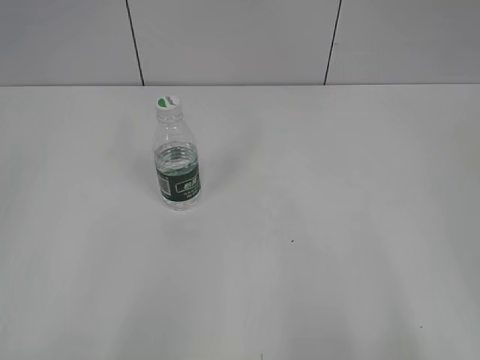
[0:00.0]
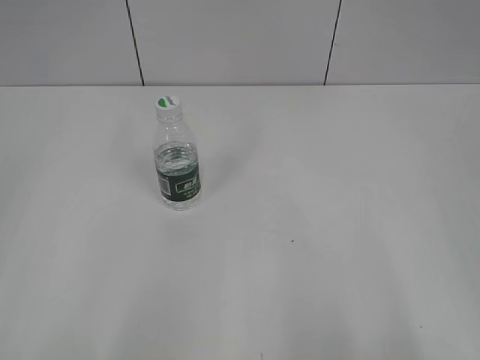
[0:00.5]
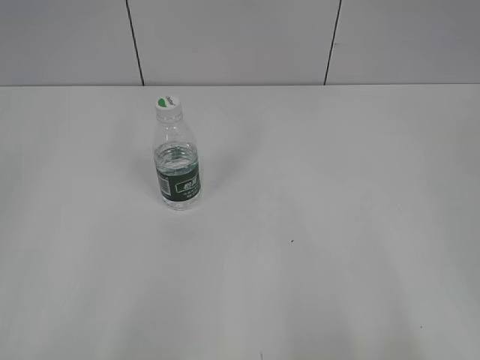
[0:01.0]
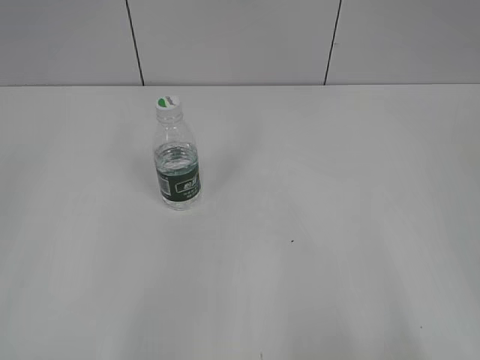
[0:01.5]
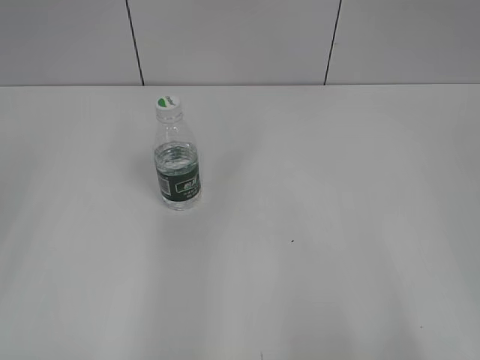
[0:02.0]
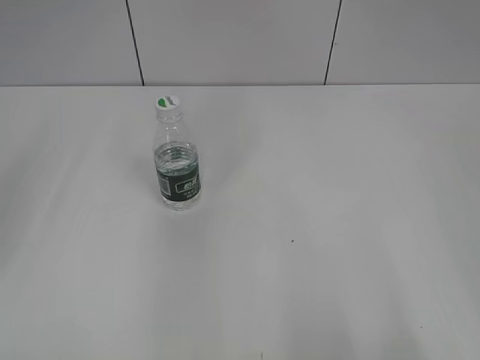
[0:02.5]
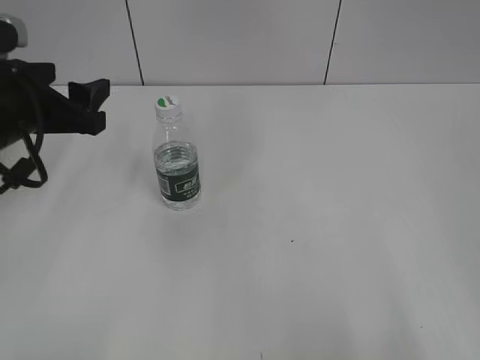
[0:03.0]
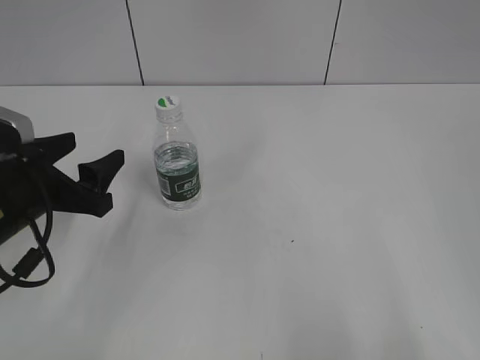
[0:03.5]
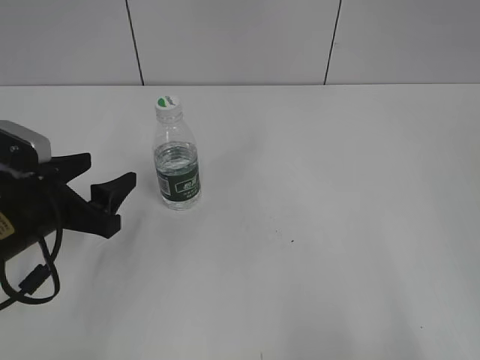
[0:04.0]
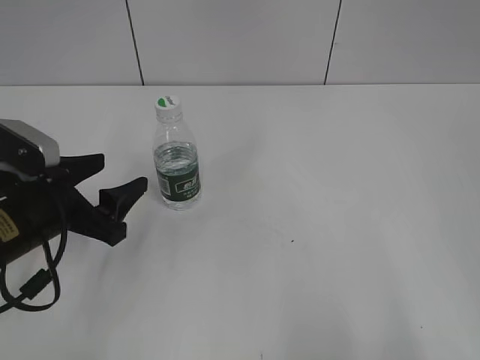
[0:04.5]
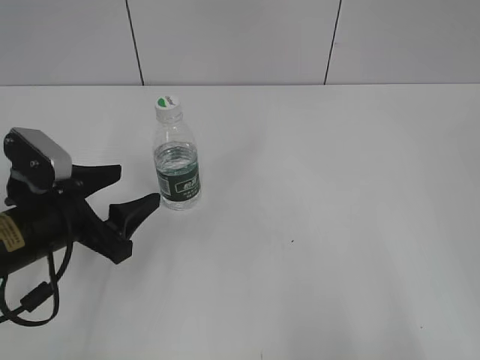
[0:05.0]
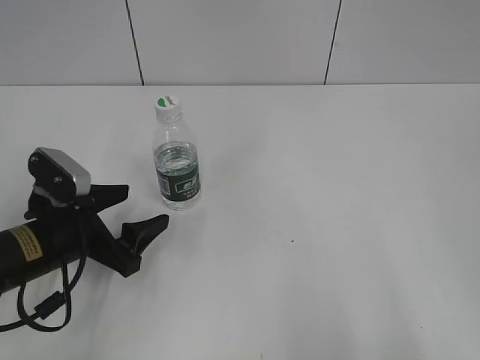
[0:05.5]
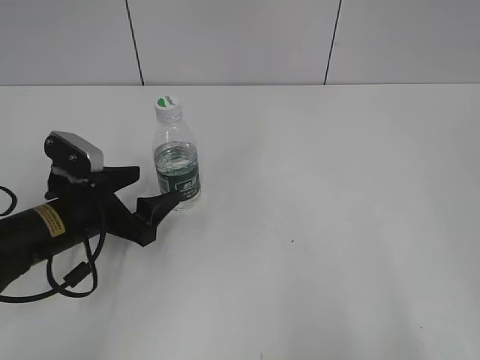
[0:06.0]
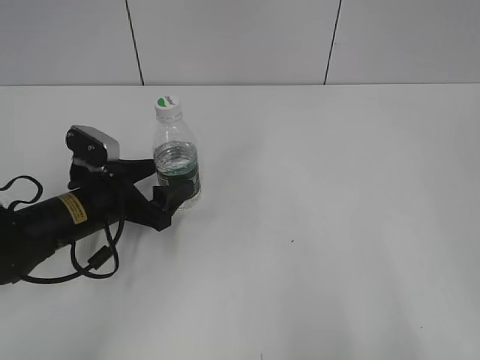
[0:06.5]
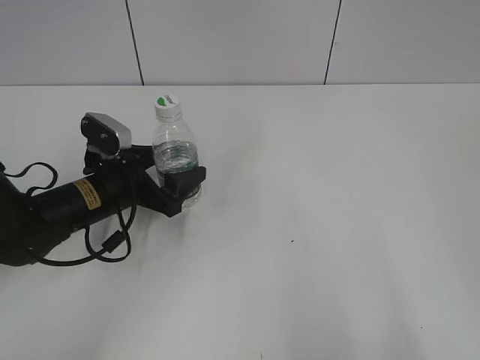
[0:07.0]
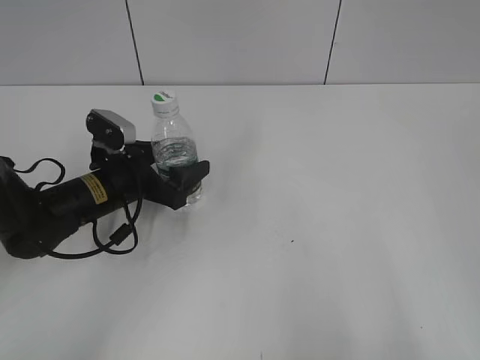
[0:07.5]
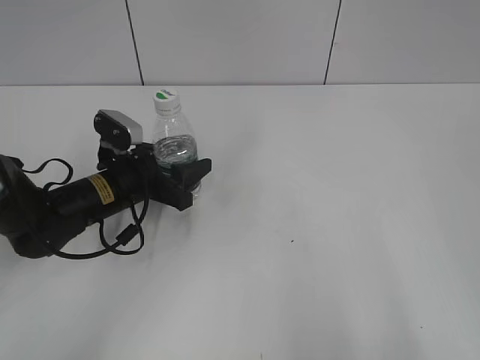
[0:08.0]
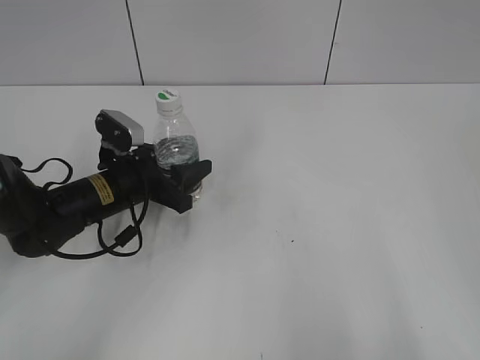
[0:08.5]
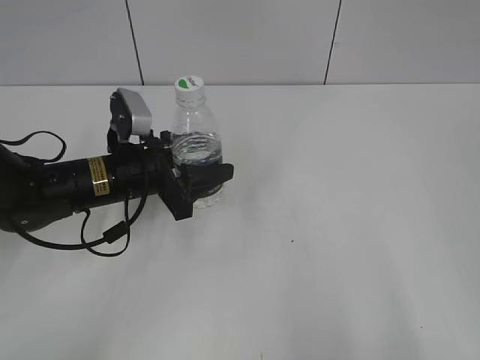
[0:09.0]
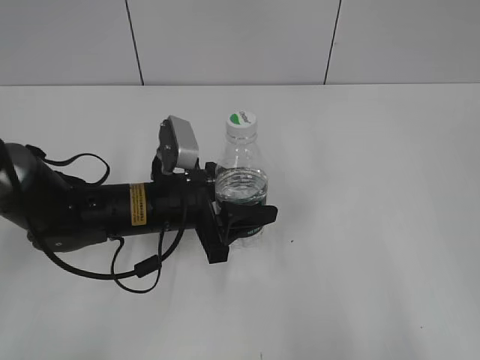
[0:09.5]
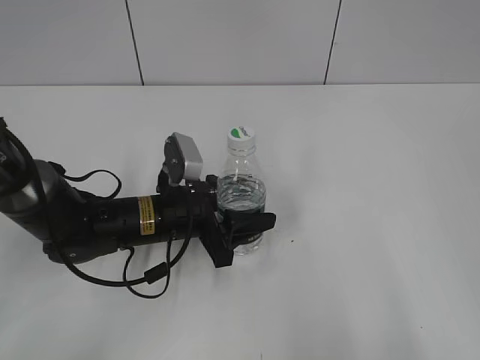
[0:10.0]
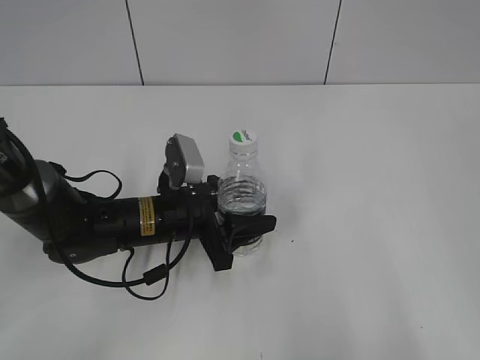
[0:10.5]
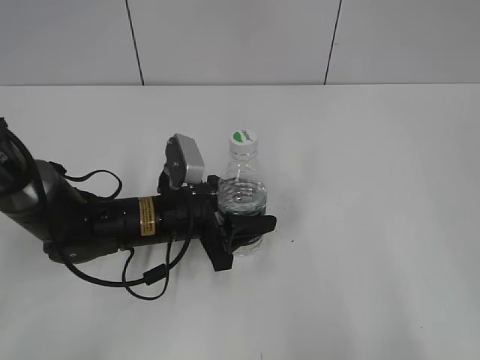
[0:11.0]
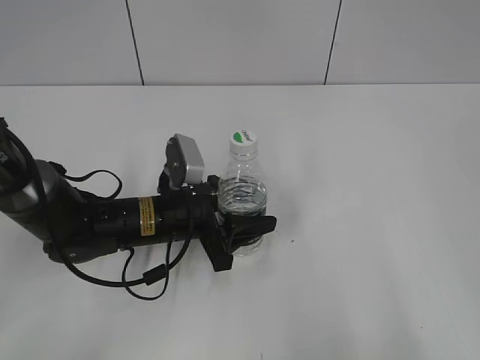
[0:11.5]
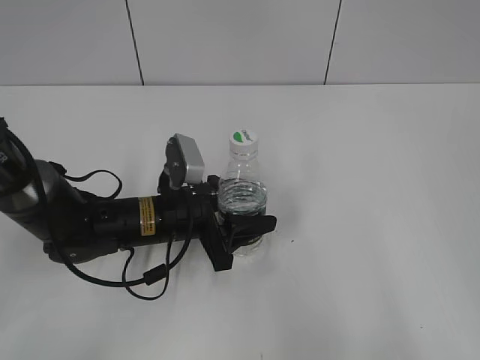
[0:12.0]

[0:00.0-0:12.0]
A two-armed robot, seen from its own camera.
Step, 0:00.0 to 0:08.5: Grasp the bottle and move it to the center of the table with the left gripper.
Step, 0:09.0 to 0:10.0: Lift the bottle and move it to the center of the table with the left gripper.
0:02.0 to 0:04.0: The left gripper goes about 25 cm downward, forward and to the right.
0:04.0 to 0:06.0: The left gripper shifts by approximately 5 cm.
0:06.0 to 0:08.0: The left gripper shifts roughly 5 cm forward, and closes.
0:08.0 to 0:10.0: The left gripper shifts roughly 5 cm to the right, and closes.
0:10.0 to 0:12.0: Both grippers stay put.

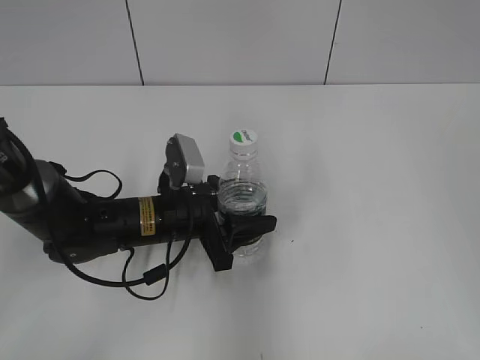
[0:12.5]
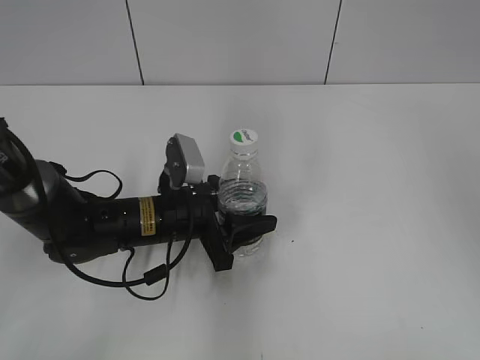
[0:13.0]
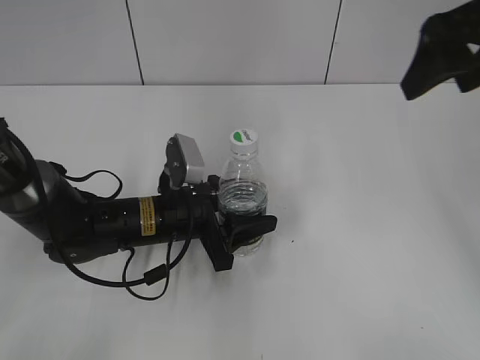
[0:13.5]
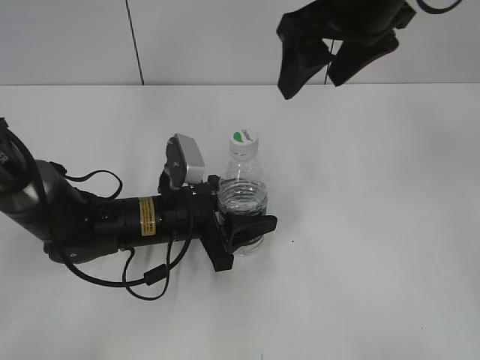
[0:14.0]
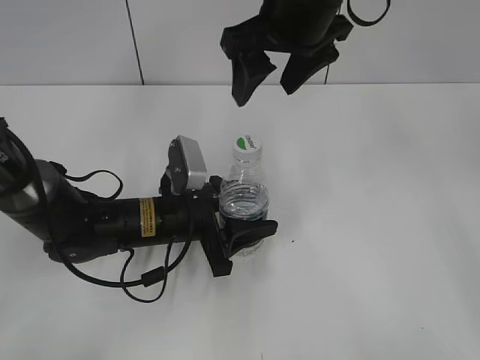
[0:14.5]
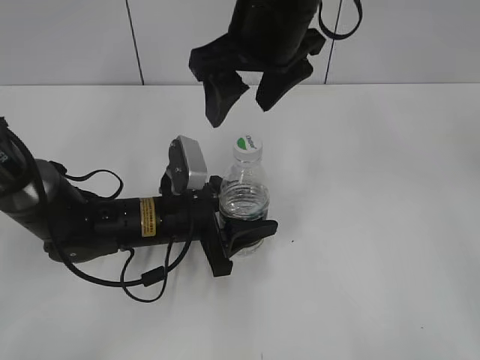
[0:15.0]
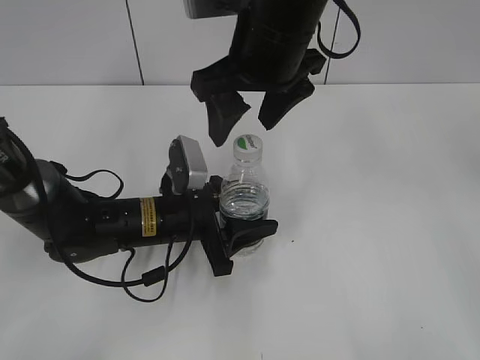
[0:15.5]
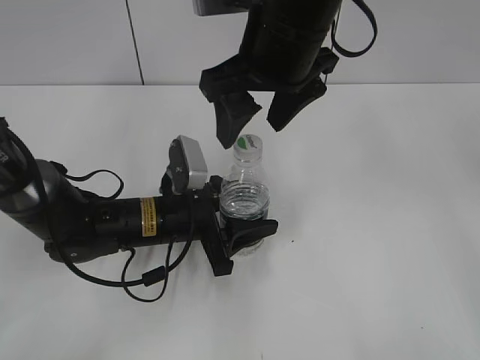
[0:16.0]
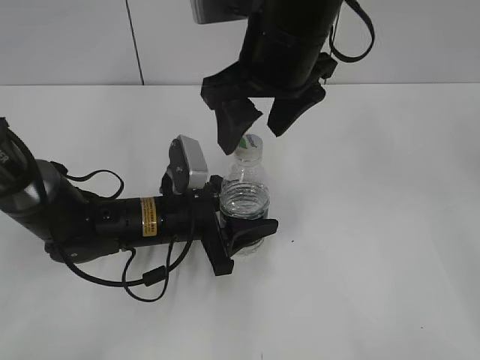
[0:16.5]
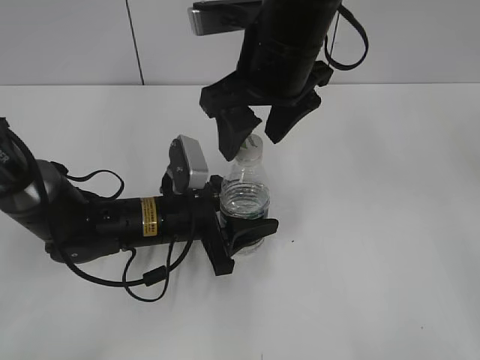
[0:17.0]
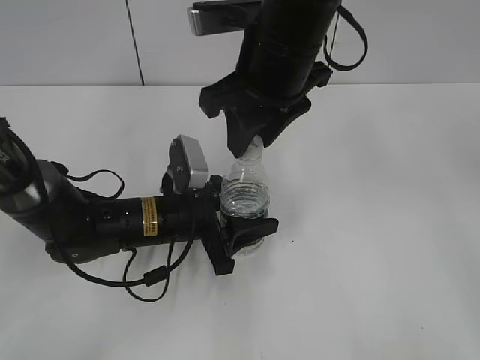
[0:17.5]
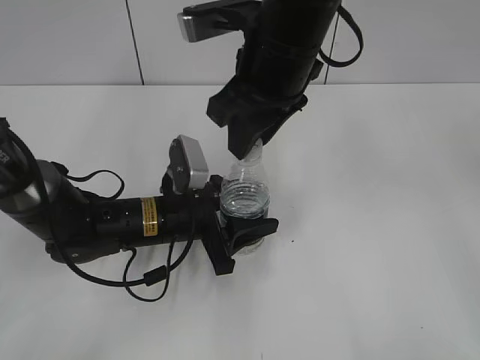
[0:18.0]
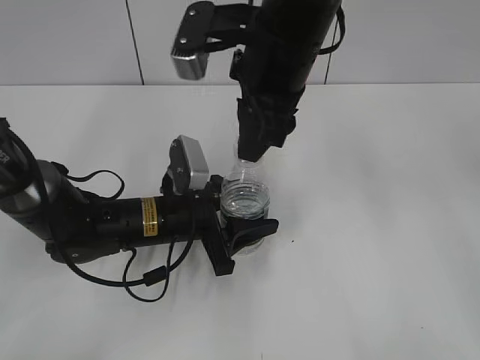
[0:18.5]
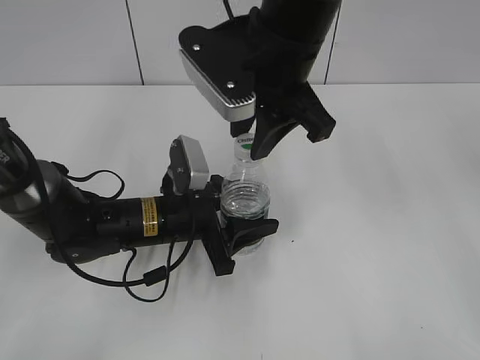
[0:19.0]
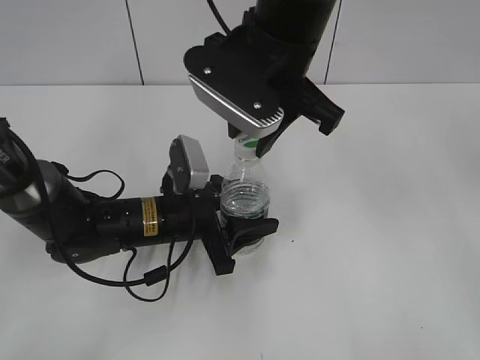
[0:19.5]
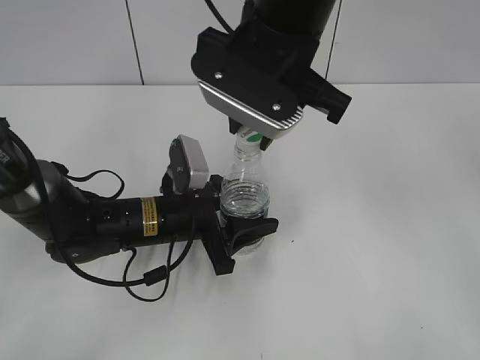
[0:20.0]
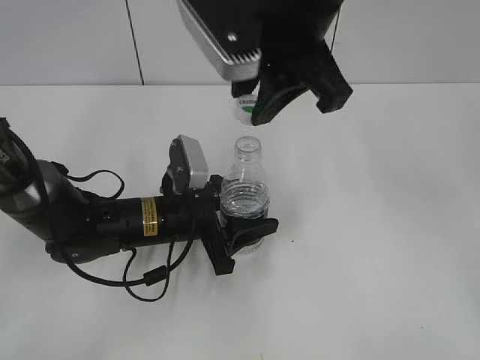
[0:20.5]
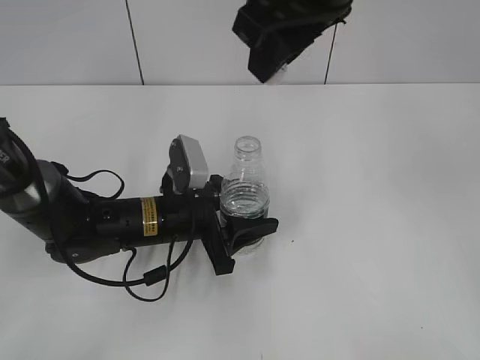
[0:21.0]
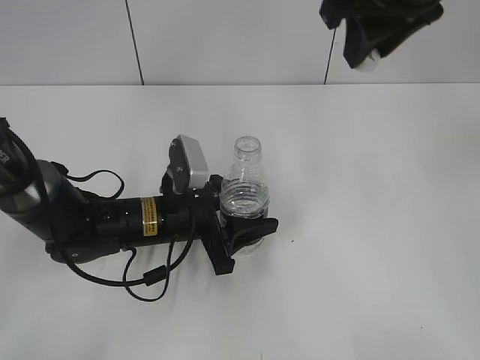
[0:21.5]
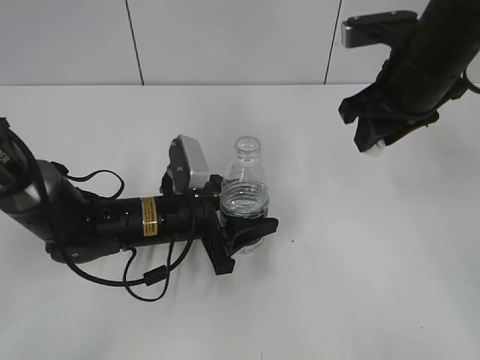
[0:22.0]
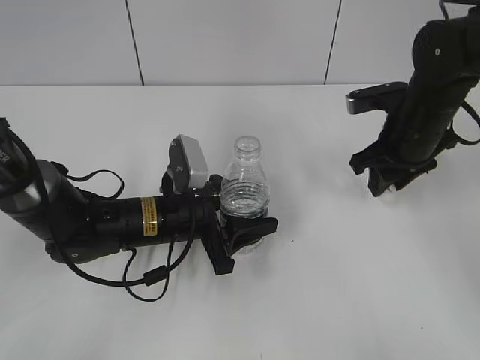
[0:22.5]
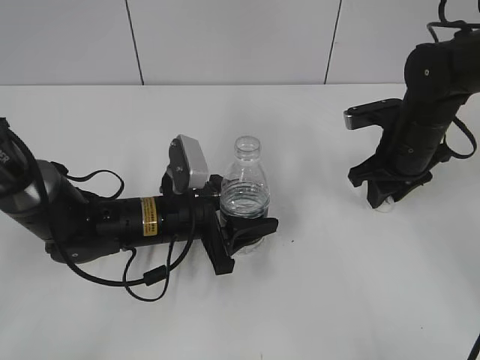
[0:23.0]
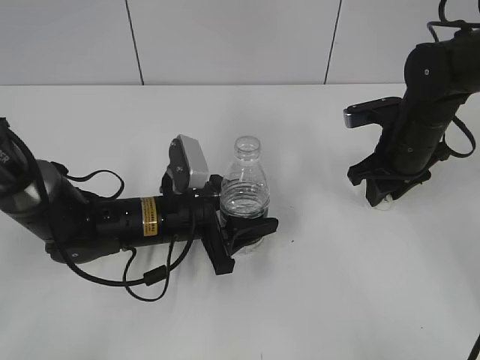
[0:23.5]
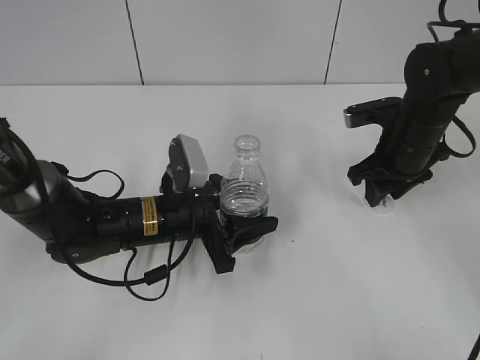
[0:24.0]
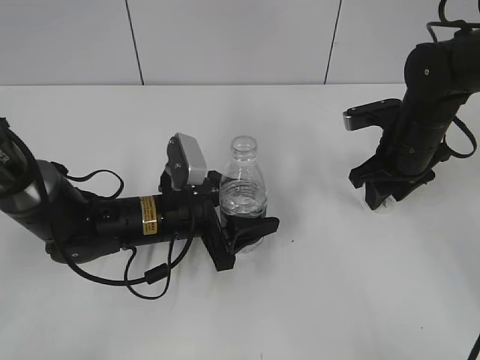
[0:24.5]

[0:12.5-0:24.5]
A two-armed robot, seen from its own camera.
Step, 0:12.5 to 0:20.5: Unscrew the bottle cap with the right gripper while holding the bottle with the left gripper.
0:12.5 to 0:14.5: The right gripper moves forward and to the left, roughly 35 cm.
0:14.5 to 0:16.5: The right gripper shifts by some 5 cm.
0:16.5 to 0:18.5: The right gripper closes up.
0:18.5 to 0:20.5: The right gripper ends up some 5 cm from where it was.
0:20.5 to 0:22.5: The right gripper goes approximately 25 cm to the right, downward and forward.
0:22.5 to 0:24.5: The grippers make only small movements.

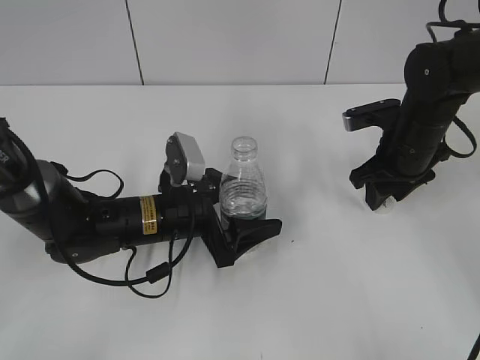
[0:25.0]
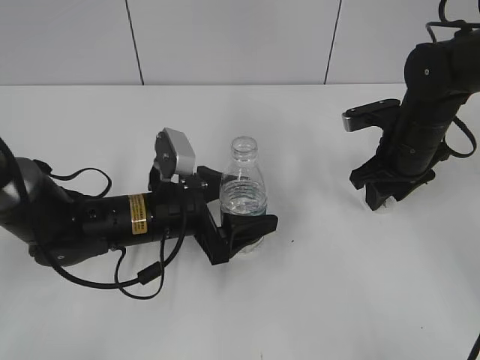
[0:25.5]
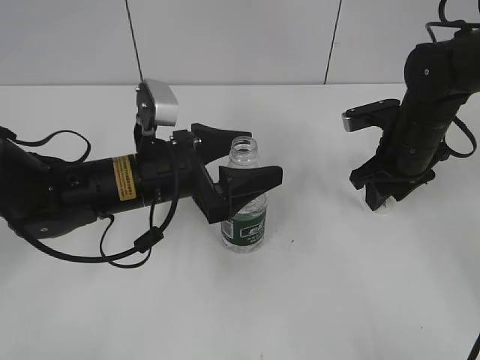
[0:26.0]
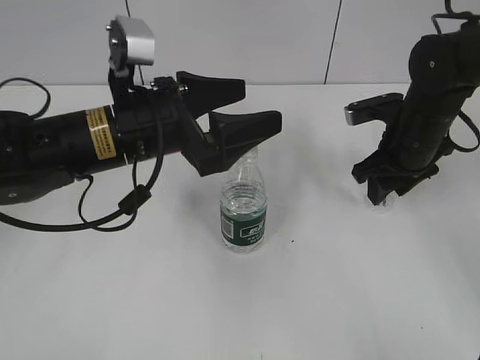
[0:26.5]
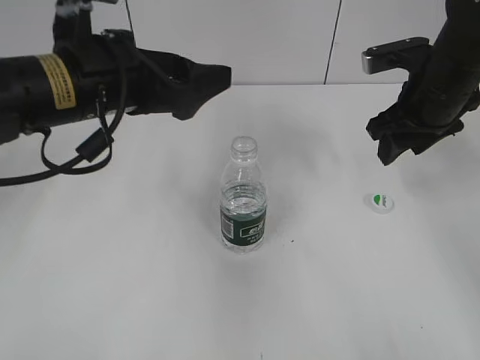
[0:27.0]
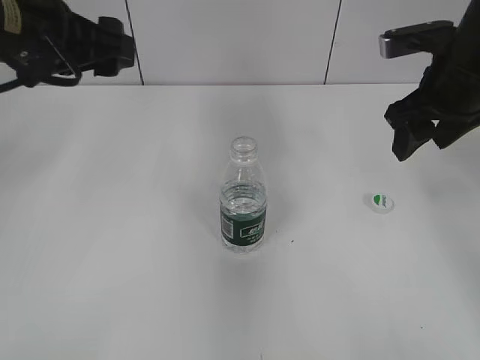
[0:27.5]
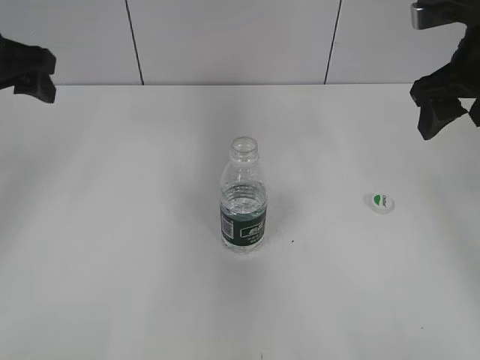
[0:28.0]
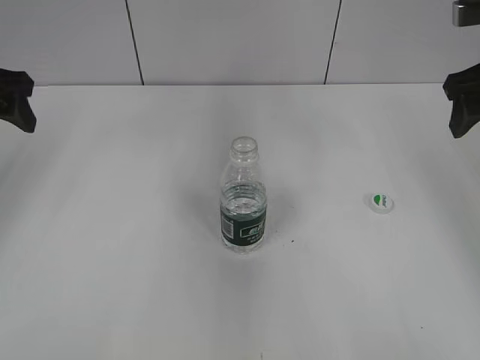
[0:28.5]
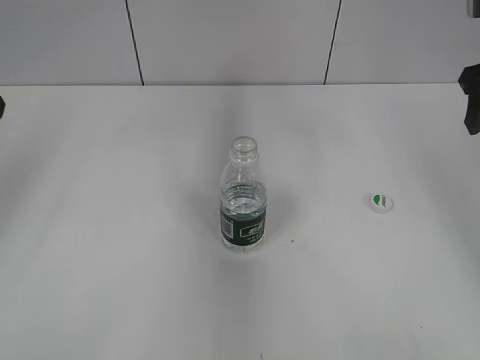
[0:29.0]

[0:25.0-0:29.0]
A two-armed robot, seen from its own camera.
Step, 0:25.0 to 0:26.0: Place the bottle on the table with the left gripper.
0:25.0 to 0:27.0: The left gripper moves upward, some 20 cm. Meanwhile the right gripper shifts roughly 10 cm upward.
0:27.0 to 0:29.0: The right gripper heads upward and to the right, covering some 10 cm, and opens its fingers. The left gripper goes about 15 cm to the left.
